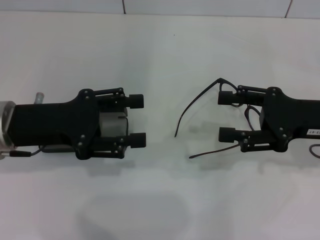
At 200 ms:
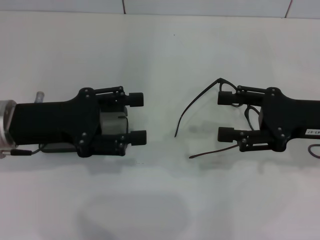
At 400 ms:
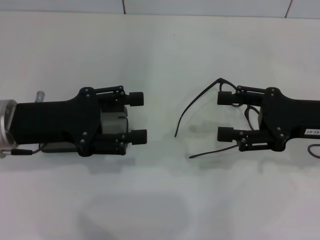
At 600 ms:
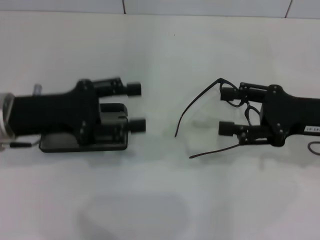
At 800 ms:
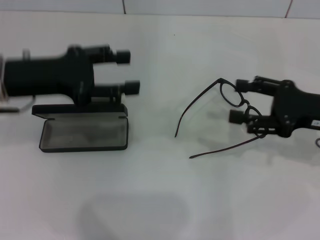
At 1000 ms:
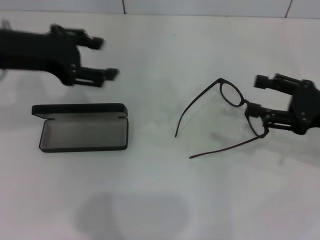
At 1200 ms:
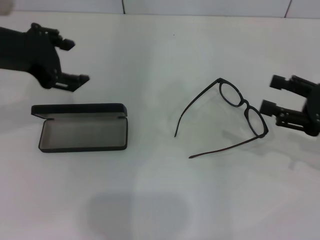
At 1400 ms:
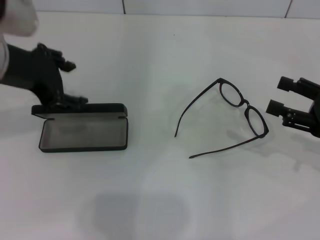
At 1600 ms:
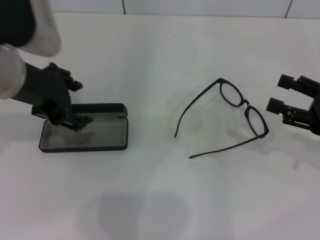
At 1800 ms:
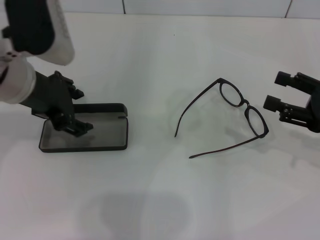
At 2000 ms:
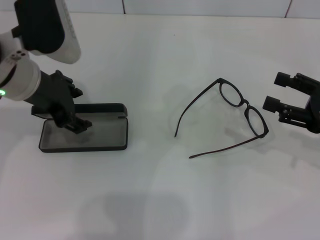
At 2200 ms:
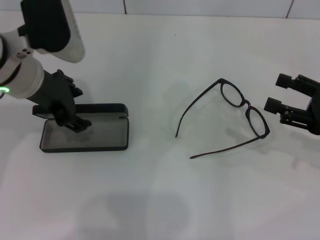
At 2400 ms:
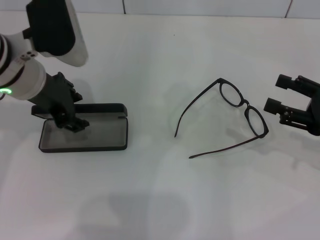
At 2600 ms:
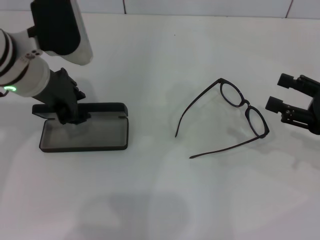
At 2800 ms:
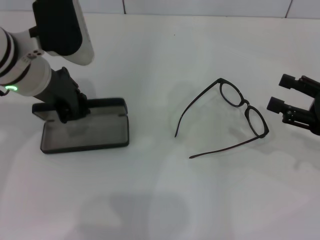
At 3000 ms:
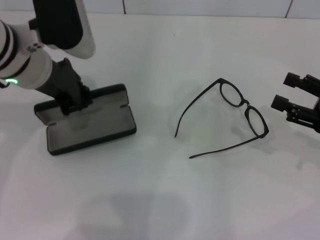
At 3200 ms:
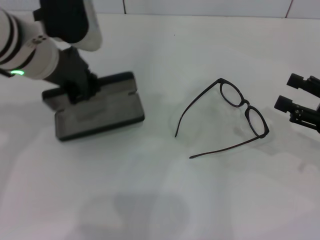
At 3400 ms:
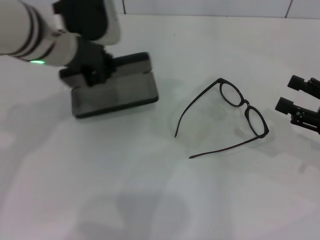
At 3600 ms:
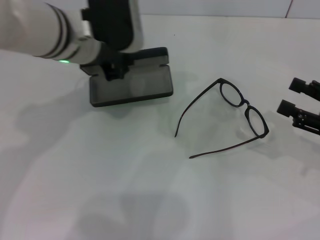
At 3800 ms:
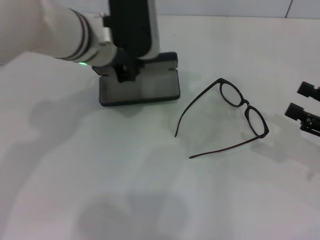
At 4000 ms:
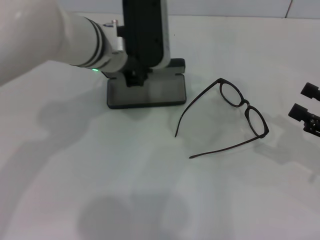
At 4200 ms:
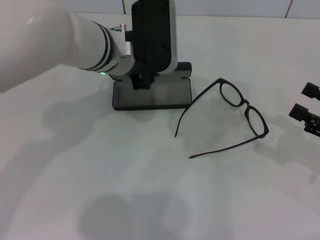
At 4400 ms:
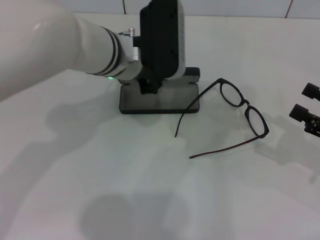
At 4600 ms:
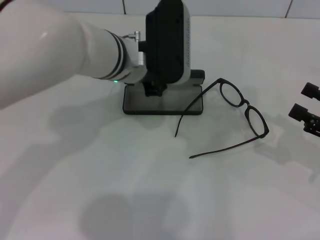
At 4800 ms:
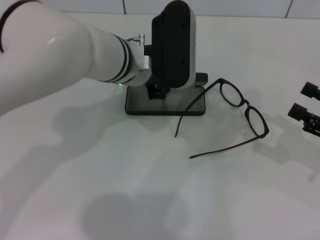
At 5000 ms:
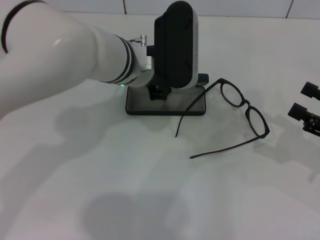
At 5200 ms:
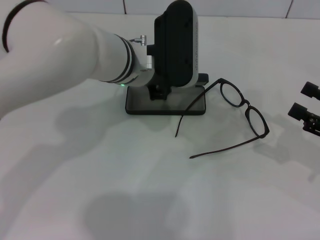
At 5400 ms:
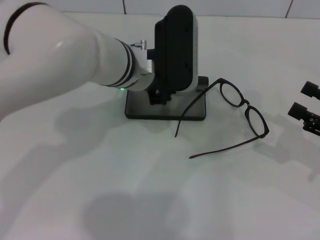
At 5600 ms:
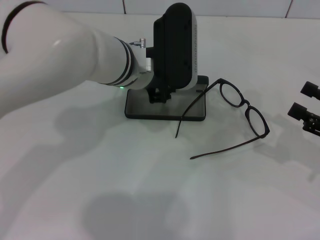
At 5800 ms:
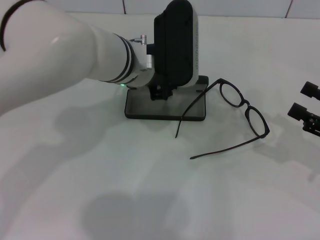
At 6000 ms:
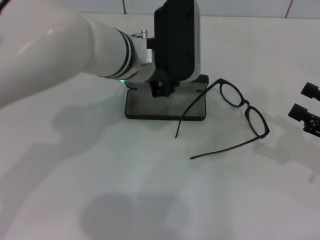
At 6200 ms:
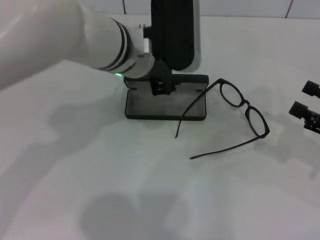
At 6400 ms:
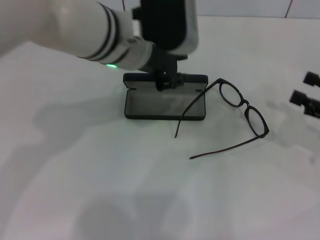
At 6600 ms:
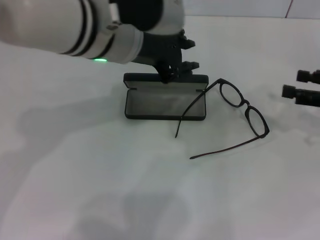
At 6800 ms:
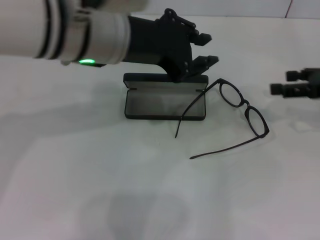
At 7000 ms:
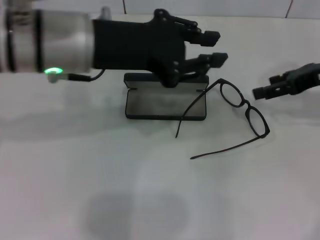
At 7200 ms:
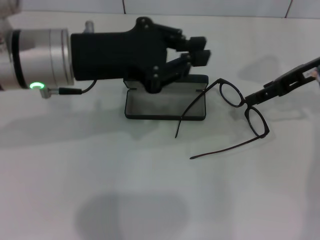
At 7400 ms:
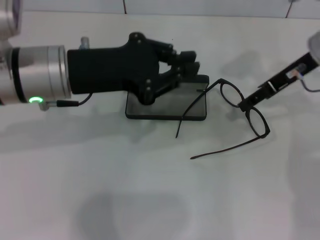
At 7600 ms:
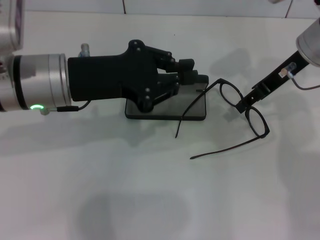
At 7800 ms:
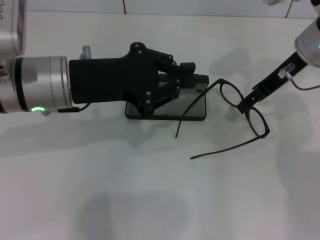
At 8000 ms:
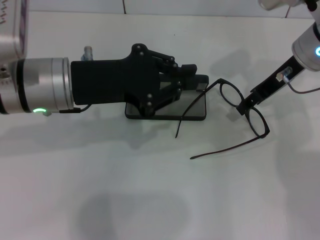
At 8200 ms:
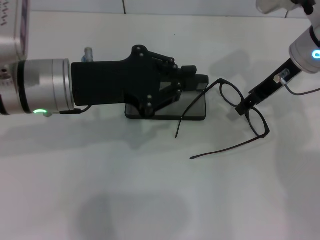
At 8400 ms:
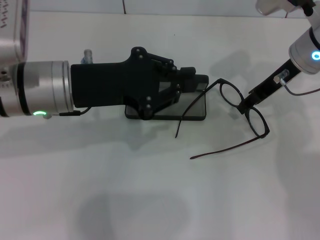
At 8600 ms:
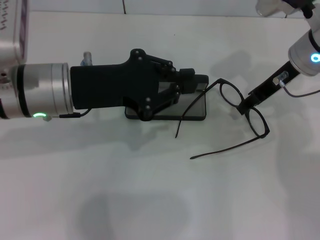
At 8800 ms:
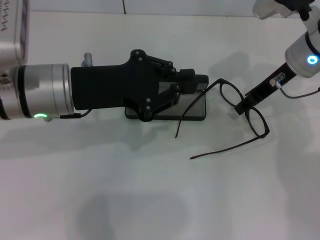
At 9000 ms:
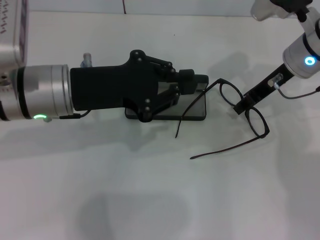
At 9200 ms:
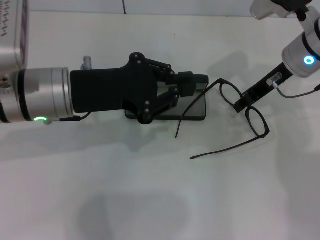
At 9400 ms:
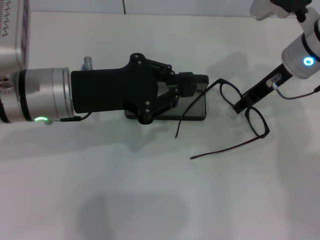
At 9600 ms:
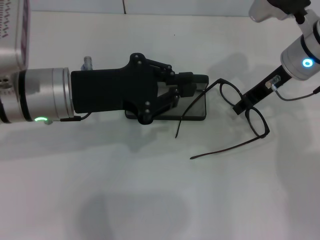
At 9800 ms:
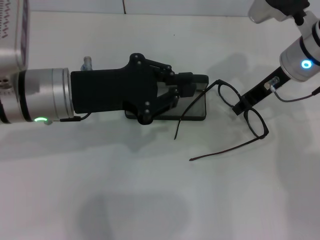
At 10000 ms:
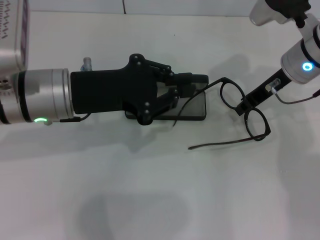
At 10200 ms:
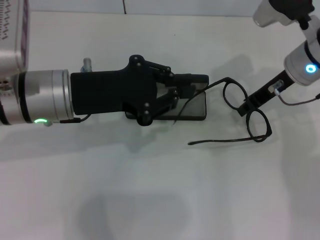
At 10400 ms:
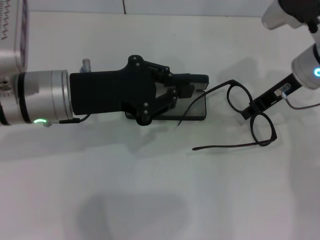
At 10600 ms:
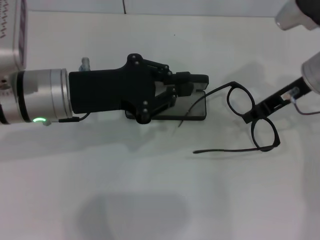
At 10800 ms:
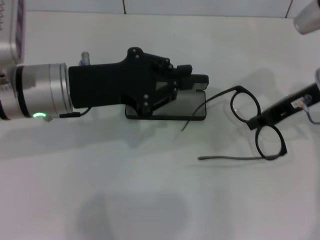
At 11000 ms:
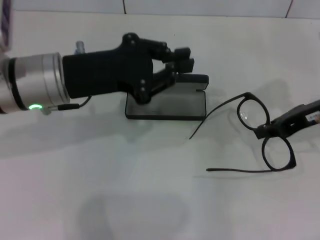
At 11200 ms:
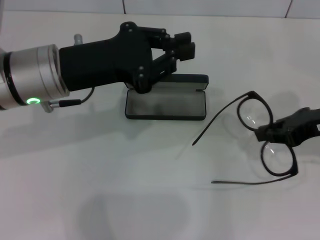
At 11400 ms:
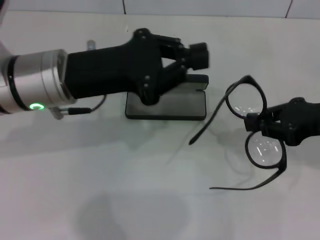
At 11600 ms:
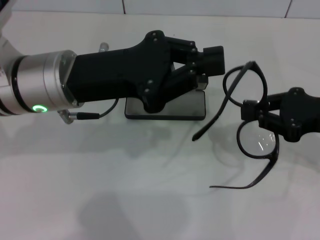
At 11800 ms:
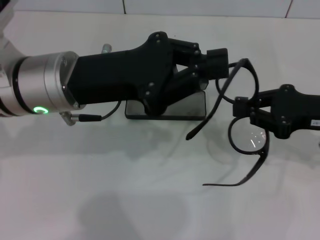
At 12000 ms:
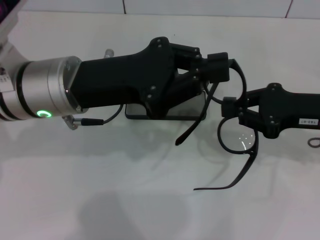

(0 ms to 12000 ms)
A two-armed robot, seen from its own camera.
Step, 0 ms - 2600 ms: Grab the glasses case with your left hand.
Step, 3000 ms - 5800 ms: Place the glasses case in the center of the table with your left hand.
Step, 6000 ms - 9800 ms: Grab the eyeglass frame with your right hand.
0 ms - 1600 ms: The left gripper shifts approximately 10 cm upward. The right gripper is displaced to the right by roughly 5 cm.
1600 ms - 3000 ms: The left gripper closes.
3000 ms - 4400 ms: The left gripper shifts approximately 10 cm to the right.
4400 ms - 6000 ms: There are only small adjustments of the grippers.
6000 ms - 7600 ms: The left gripper moves to the left and backward, approximately 15 cm; the right gripper heads forward, to the left and upward, covering approximately 25 cm.
7600 ms - 9000 ms: The right gripper closes.
9000 ms - 10400 ms: The right gripper closes.
10400 ms - 12000 ms: The right gripper travels backward and to the right by about 10 cm.

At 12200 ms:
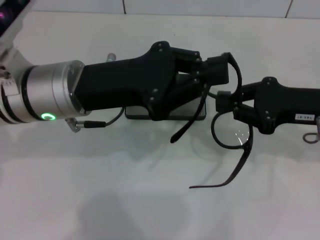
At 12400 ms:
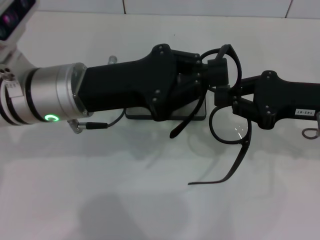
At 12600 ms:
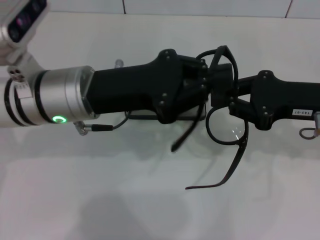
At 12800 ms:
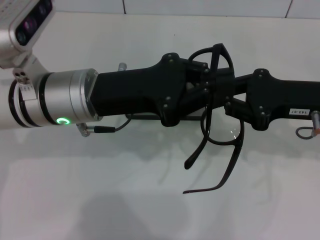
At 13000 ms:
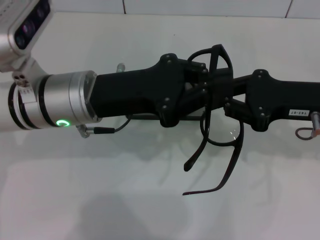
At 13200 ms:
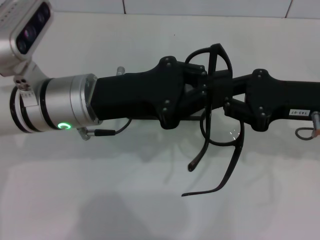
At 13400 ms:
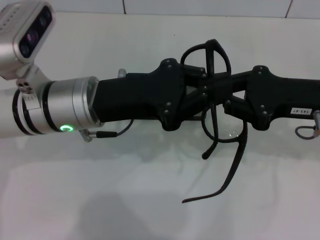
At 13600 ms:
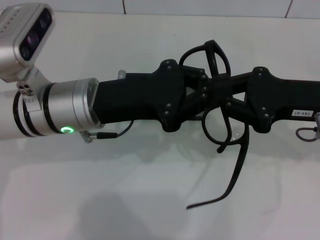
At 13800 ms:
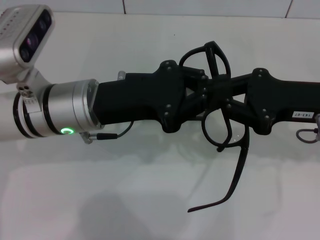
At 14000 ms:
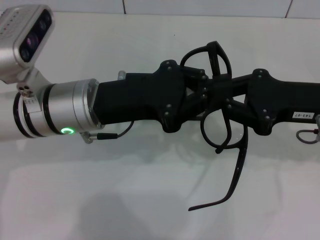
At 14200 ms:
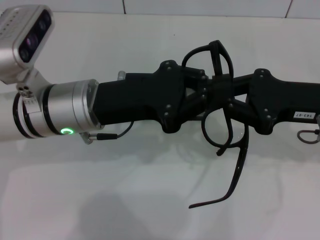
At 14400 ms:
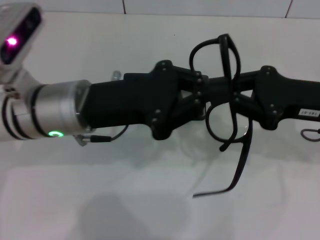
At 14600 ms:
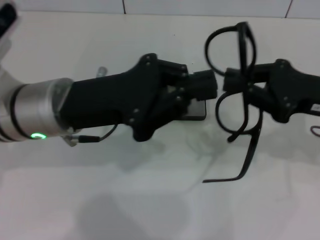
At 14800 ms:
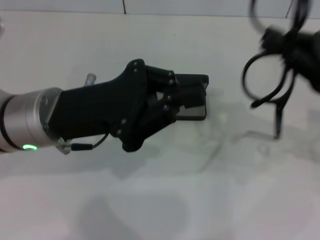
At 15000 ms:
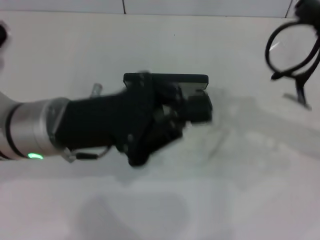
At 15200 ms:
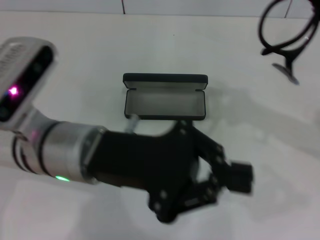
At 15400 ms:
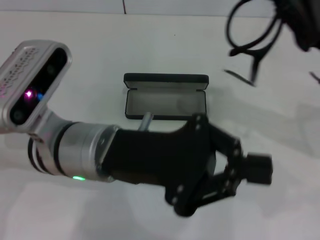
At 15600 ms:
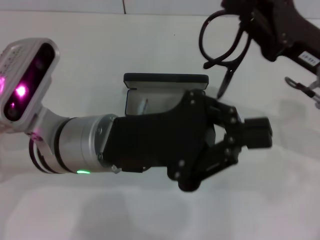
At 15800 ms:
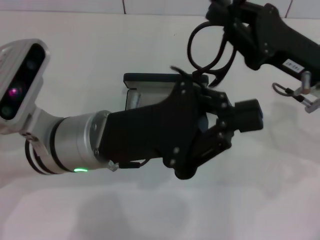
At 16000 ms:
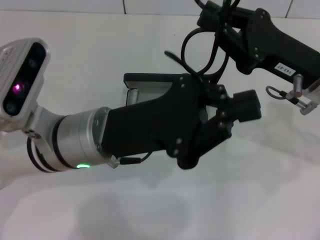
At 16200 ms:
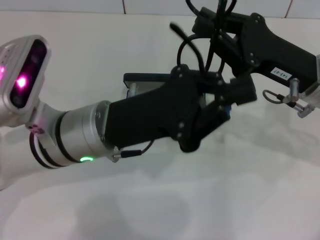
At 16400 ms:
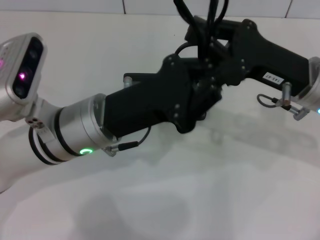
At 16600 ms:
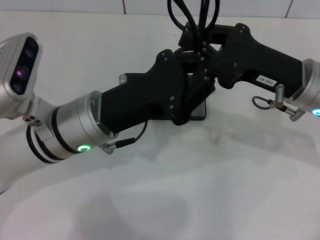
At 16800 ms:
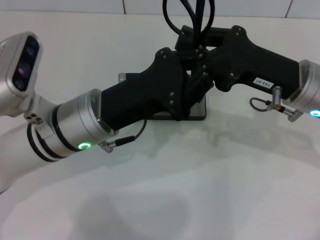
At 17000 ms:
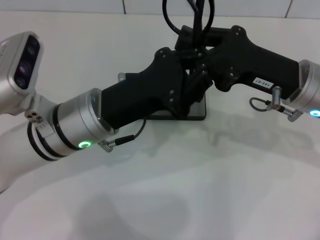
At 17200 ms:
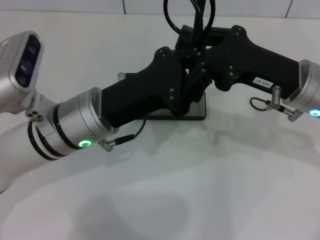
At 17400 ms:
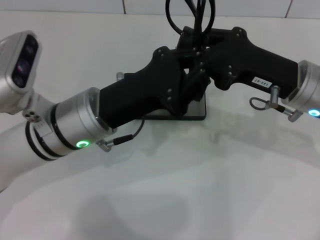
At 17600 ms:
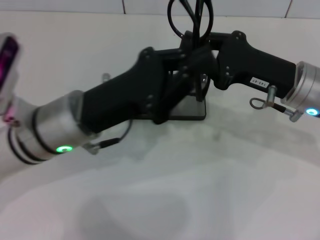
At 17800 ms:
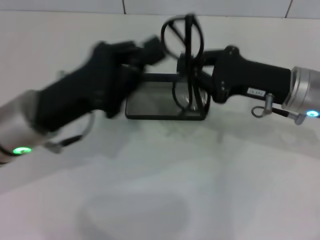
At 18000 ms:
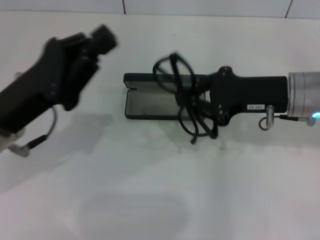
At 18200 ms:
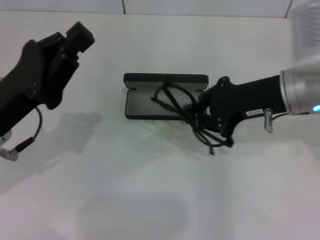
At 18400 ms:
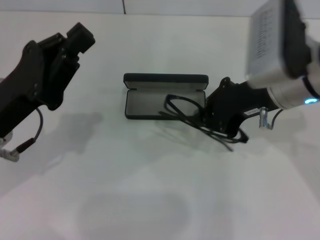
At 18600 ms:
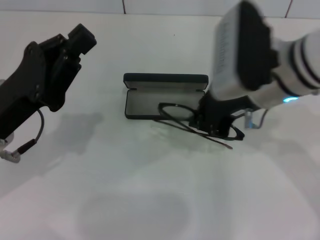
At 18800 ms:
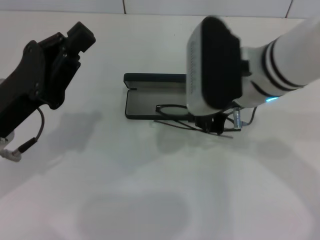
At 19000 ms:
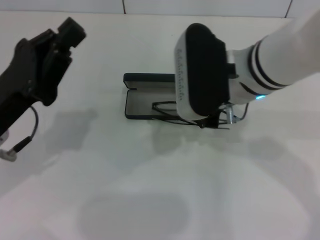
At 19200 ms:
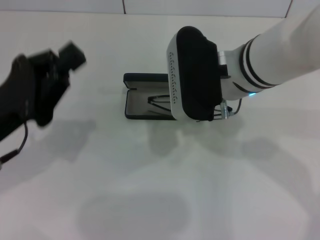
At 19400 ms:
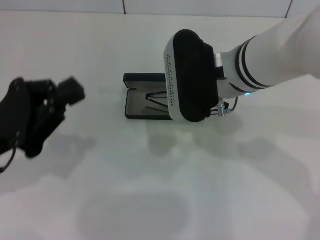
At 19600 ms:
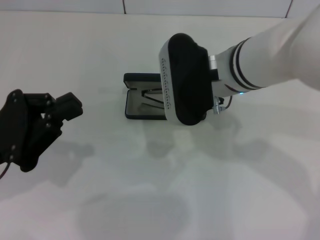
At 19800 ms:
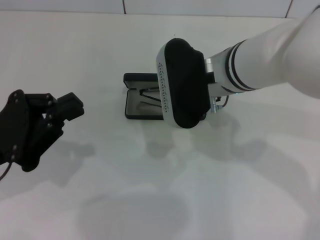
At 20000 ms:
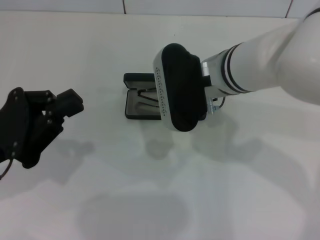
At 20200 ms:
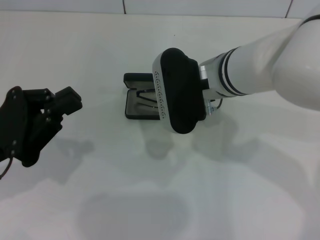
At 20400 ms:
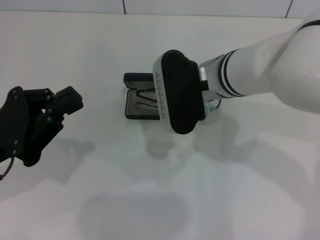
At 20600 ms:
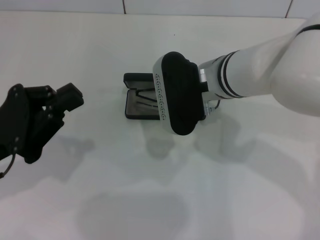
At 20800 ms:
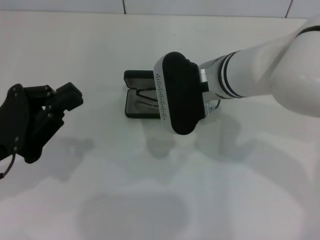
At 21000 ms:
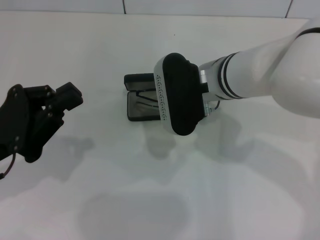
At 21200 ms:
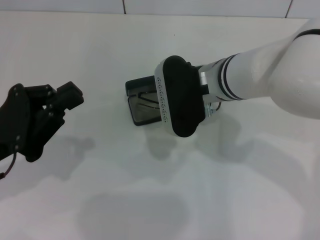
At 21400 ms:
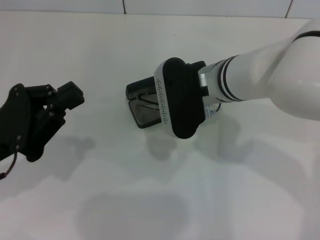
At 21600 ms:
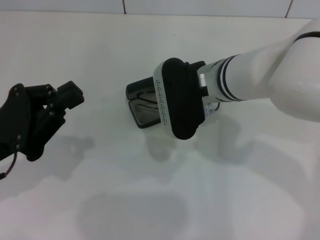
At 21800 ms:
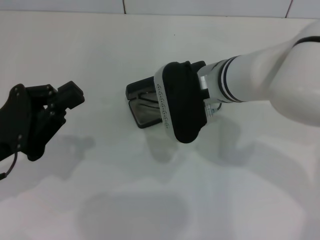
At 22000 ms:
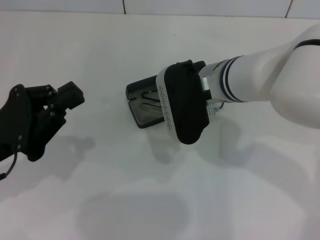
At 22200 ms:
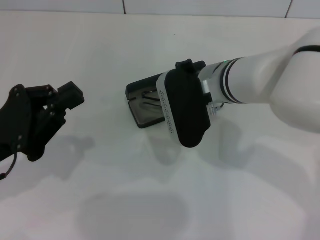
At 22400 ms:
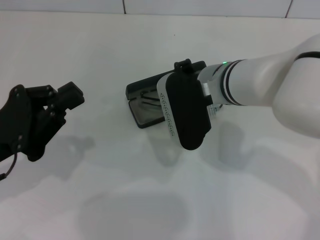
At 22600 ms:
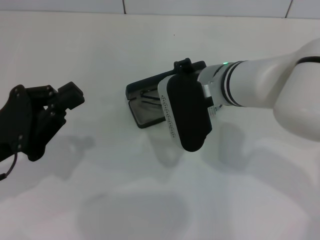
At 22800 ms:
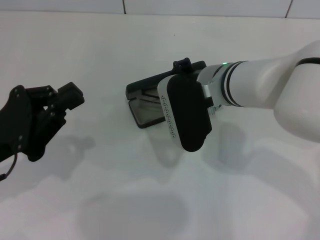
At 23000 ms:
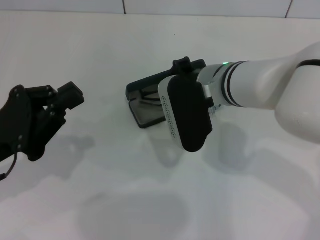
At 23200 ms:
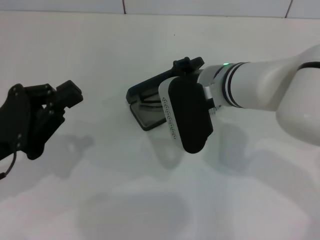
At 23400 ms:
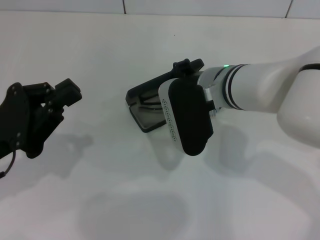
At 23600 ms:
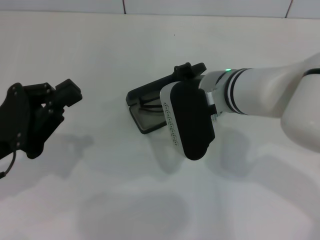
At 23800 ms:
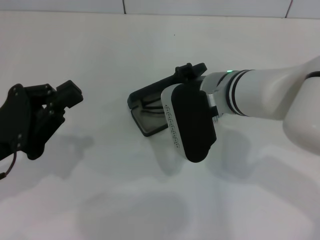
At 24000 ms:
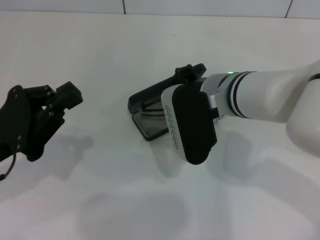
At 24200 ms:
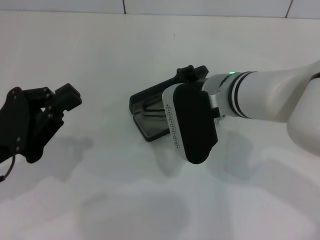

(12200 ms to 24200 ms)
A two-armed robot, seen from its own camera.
Step, 12200 ms - 16800 ms: Fold the frame with your left hand.
15200 ms - 16600 ms: The right gripper goes roughly 10 cm to the left.
16600 ms - 18200 ms: The left gripper heads to the left, covering some 10 cm.
18200 ms - 19800 ms: The right gripper moves to the left, roughly 10 cm.
19800 ms - 24200 ms: There are only small adjustments of the grippers.
